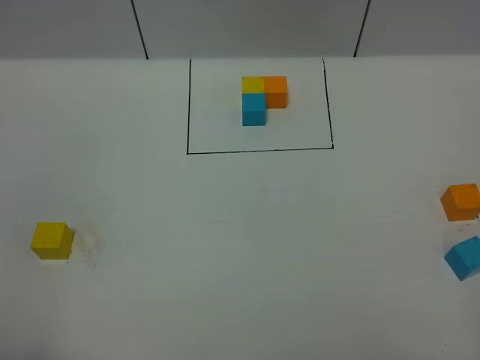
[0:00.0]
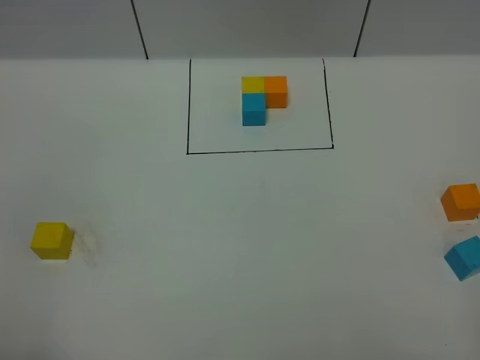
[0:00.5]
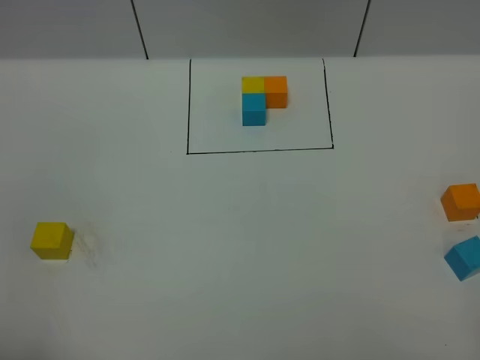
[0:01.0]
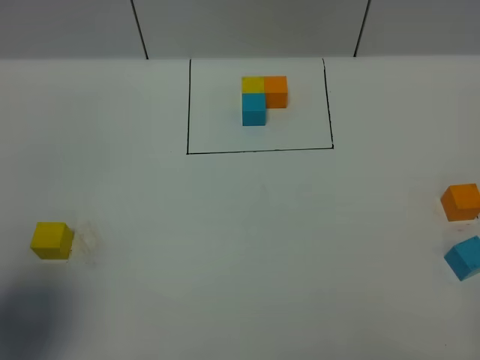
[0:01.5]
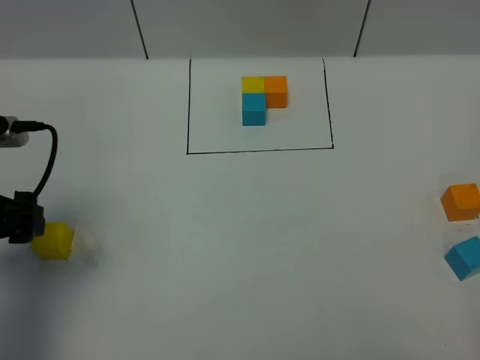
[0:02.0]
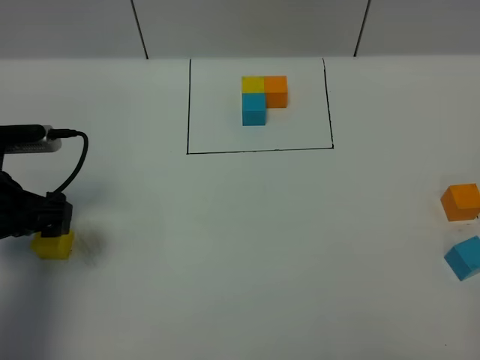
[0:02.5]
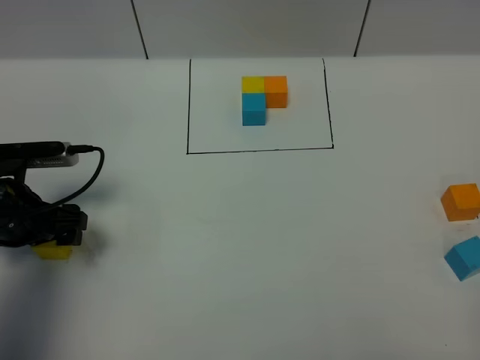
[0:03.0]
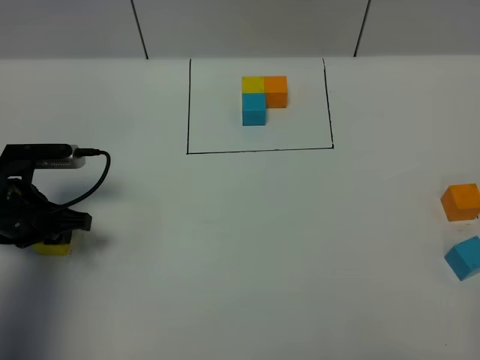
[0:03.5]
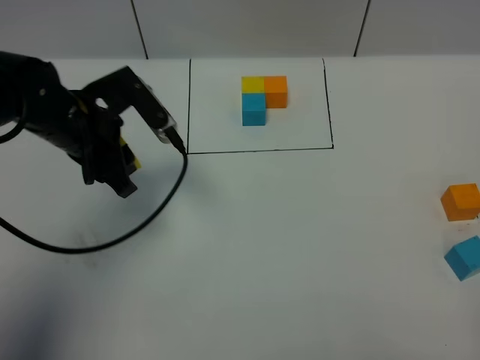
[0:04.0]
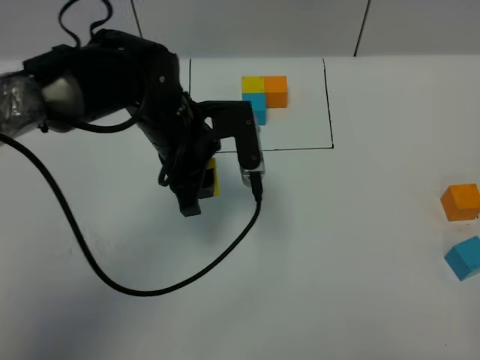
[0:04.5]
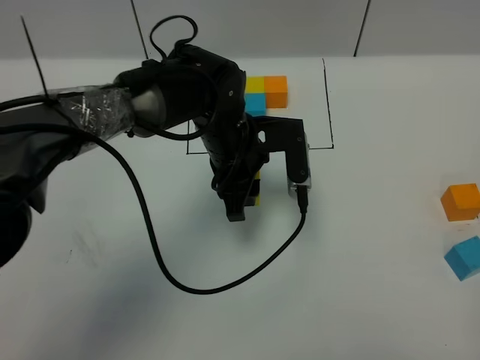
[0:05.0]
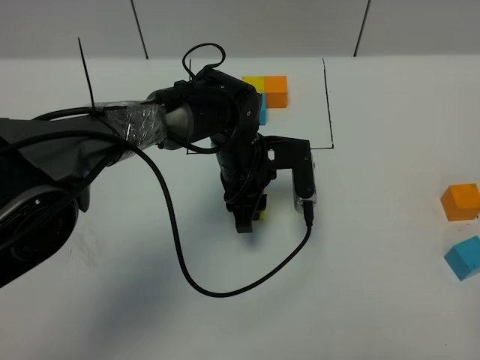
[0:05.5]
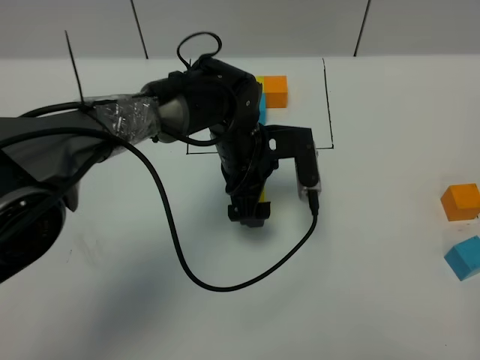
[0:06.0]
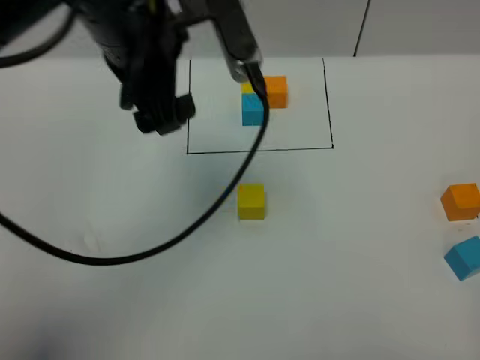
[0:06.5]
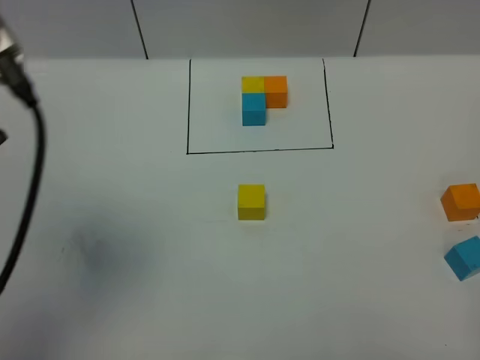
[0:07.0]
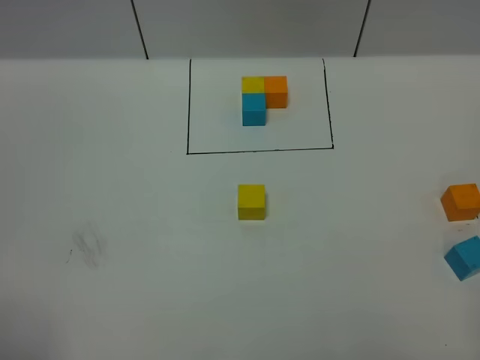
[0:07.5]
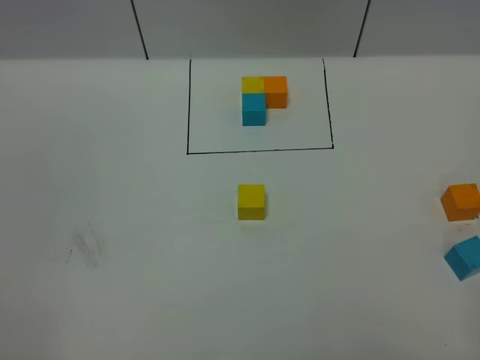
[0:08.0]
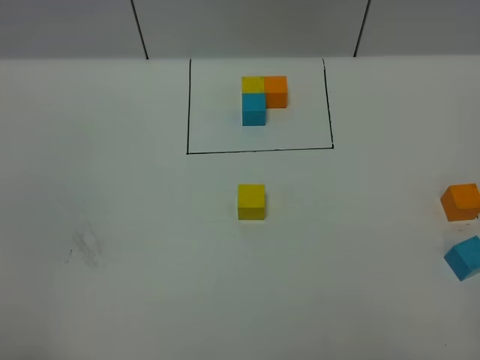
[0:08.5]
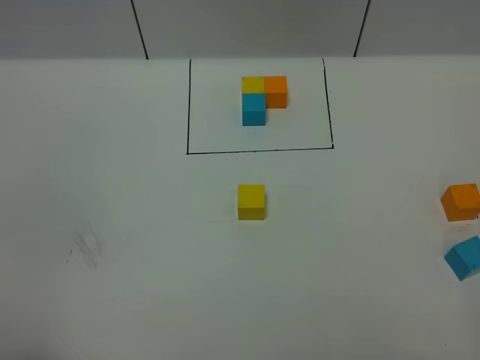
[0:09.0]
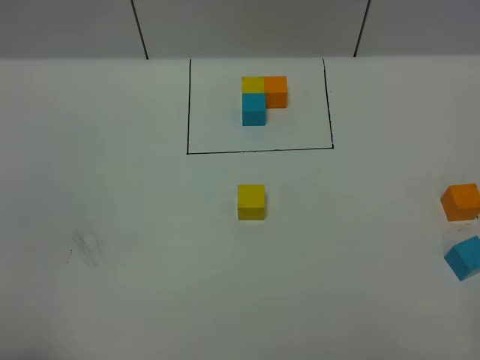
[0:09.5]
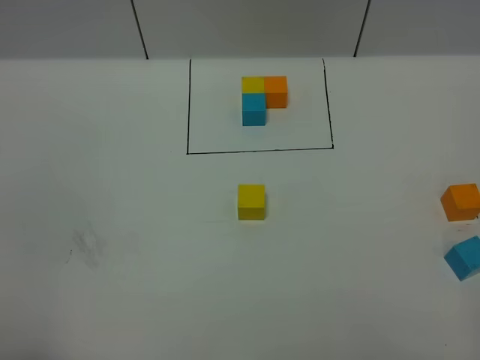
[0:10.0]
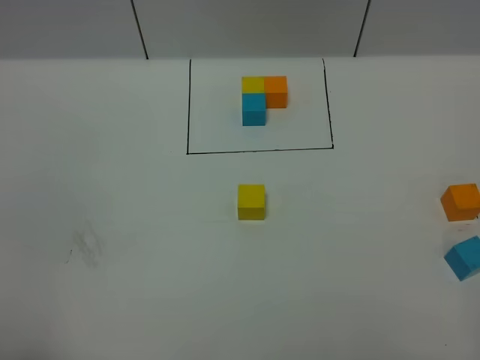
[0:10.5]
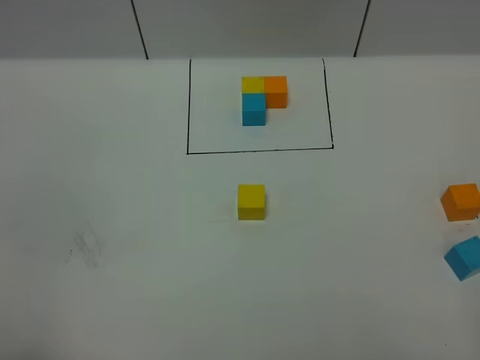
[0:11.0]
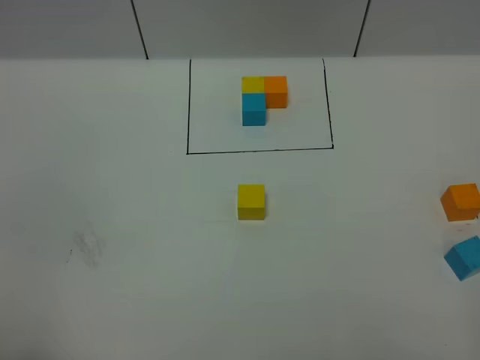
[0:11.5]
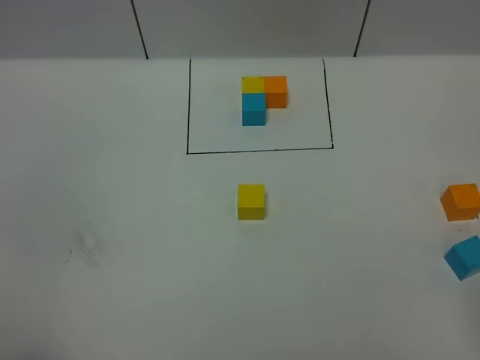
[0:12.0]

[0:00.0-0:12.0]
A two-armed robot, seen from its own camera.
Task of the whole recording: According to the building block template in front, assemble the scattered blocks together.
Step, 2.0 to 6.0 s: Put the yellow cube in the center of the table.
0.0 to 2.0 s: The left gripper travels forward by approximately 25 cm, and opens up.
2.0 to 4.0 s: The left gripper travels forward and to the right by some 15 cm, and closes up.
4.0 to 6.0 s: The left gripper heads to the right, covering about 20 cm, and opens its fingers.
6.0 to 8.0 s: The left gripper heads backward, to the left and upward, covering about 60 cm.

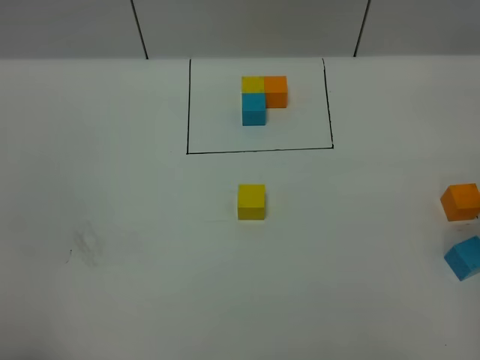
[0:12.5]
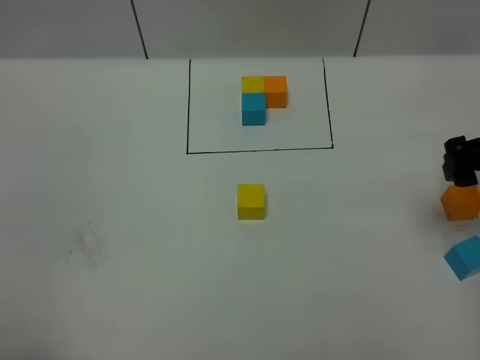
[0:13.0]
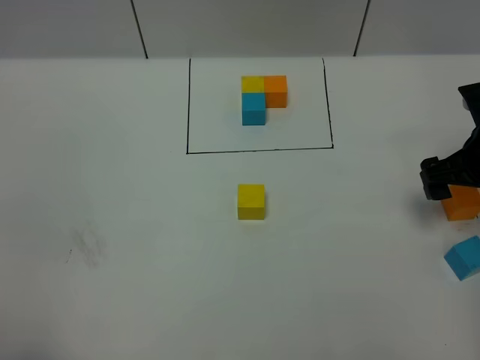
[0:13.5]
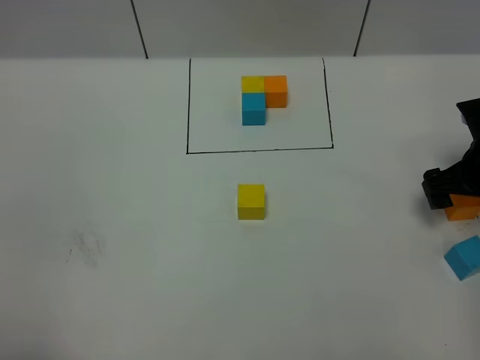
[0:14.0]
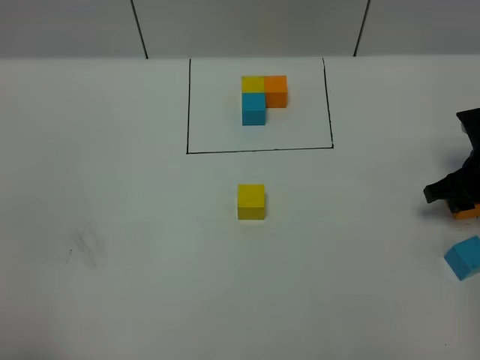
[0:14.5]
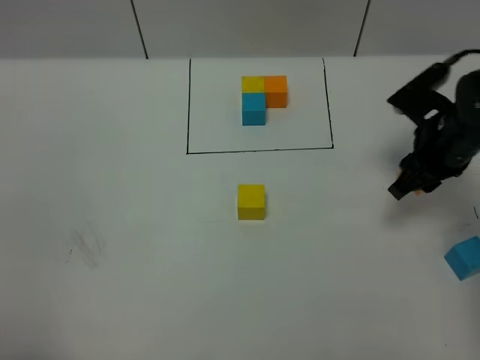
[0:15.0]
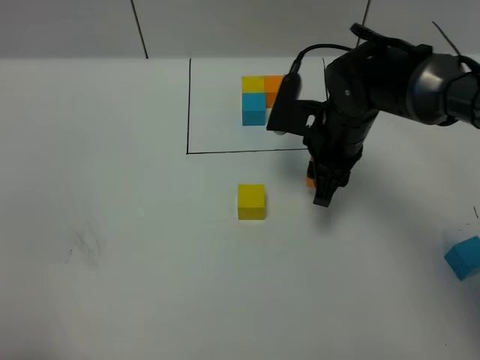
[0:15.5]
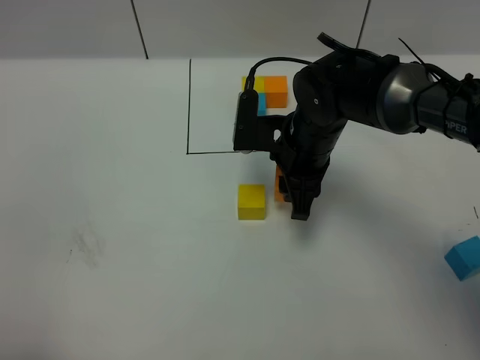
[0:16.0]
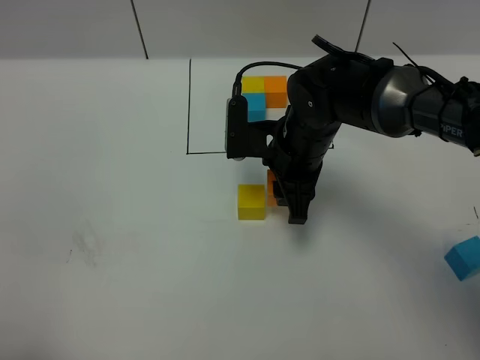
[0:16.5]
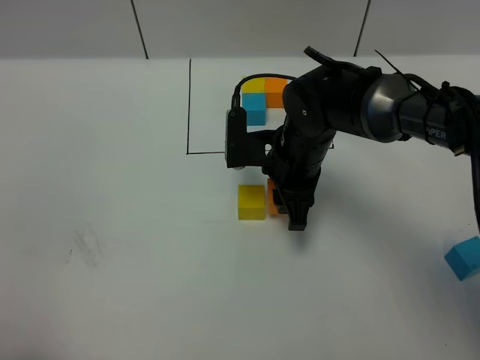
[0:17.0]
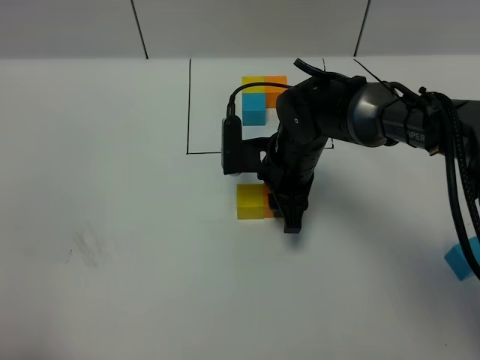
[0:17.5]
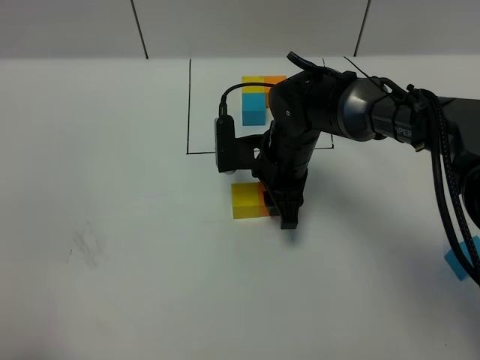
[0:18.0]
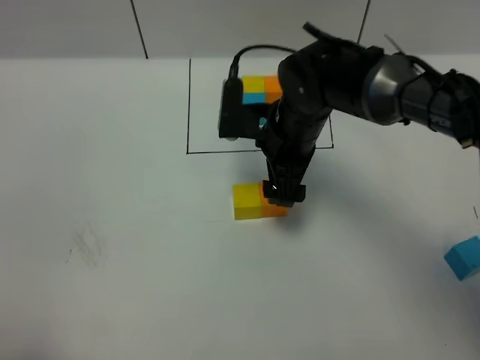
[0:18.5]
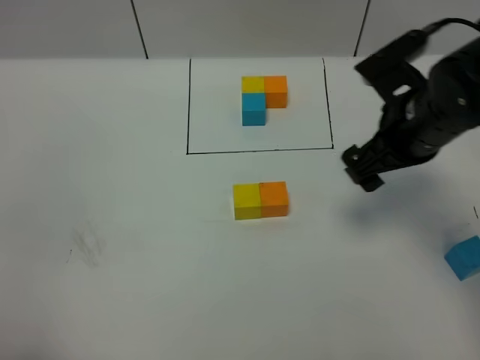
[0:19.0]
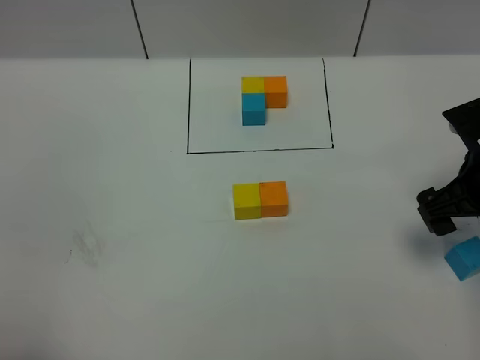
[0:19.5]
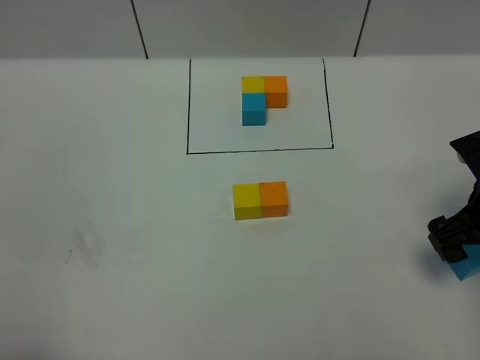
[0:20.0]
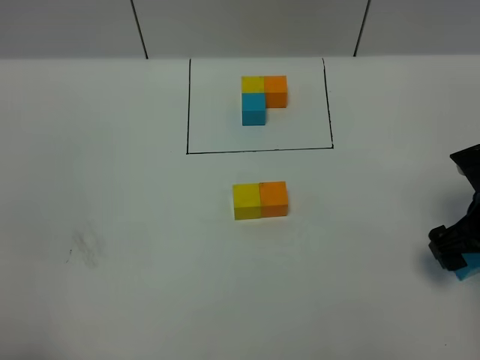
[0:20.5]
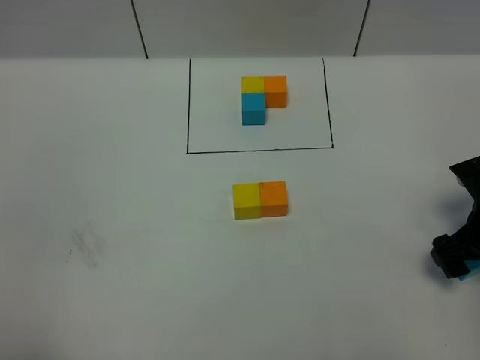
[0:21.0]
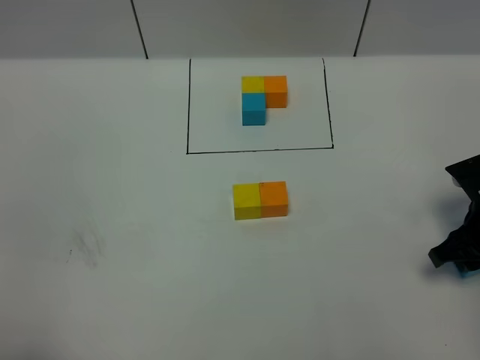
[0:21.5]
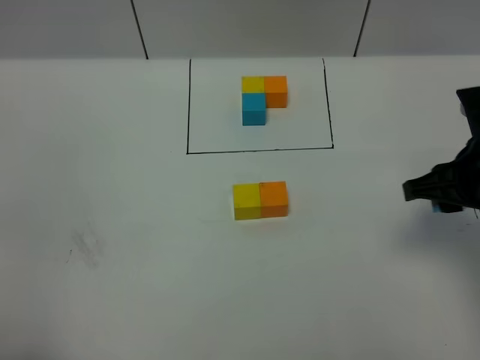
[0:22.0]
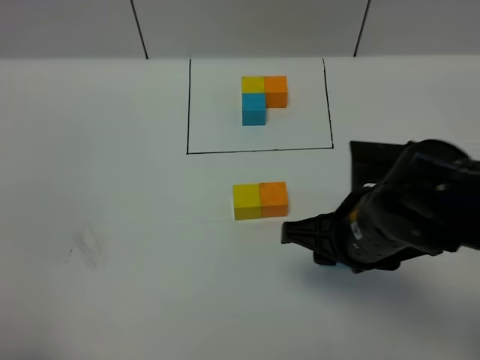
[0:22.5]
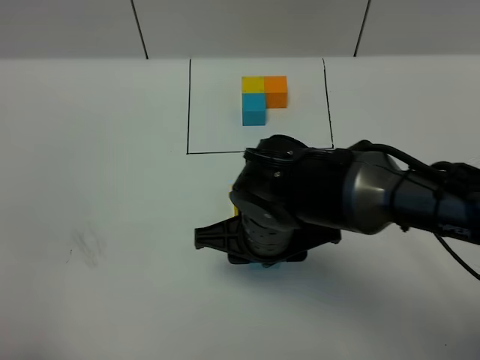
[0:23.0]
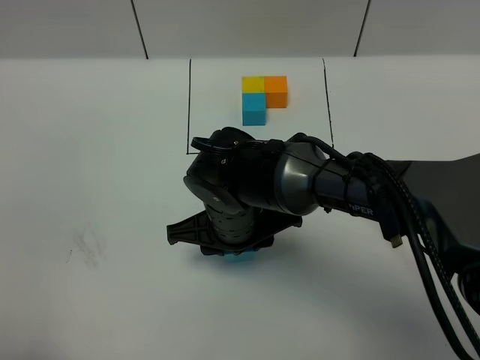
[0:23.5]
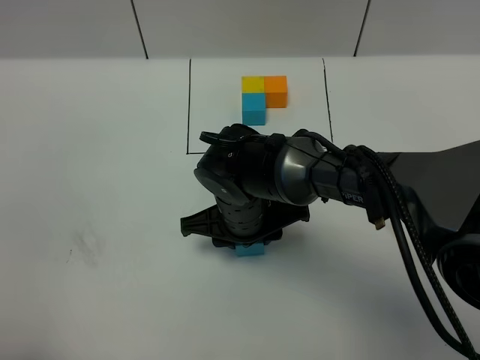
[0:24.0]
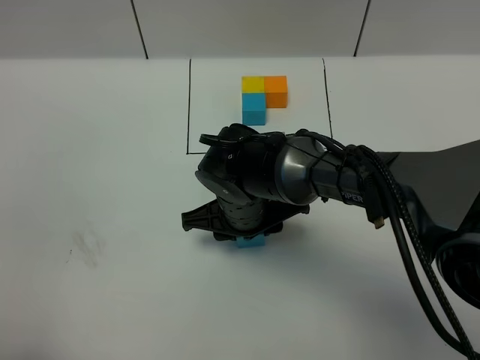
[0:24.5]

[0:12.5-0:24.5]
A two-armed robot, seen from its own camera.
Task of the whole recording: According to the building block template in front, assemble the scattered blocks together.
Step, 12.5 to 18.5 s: Put the orange cube on the right of the yellow cube.
12.5 to 14.5 s: The right gripper goes approximately 20 cm downward and forward, and opens and closes again.
14.5 to 16.5 s: The right gripper is displaced to the left by some 25 cm.
16.5 to 18.5 s: The right gripper opens.
18.5 to 20.5 s: The right gripper is displaced to the right and backward by some 25 cm.
20.5 to 22.5 s: The right gripper goes some 20 cm to the left, and closes.
22.5 to 24.5 s: The right gripper is displaced to the left, forward and downward by some 15 cm.

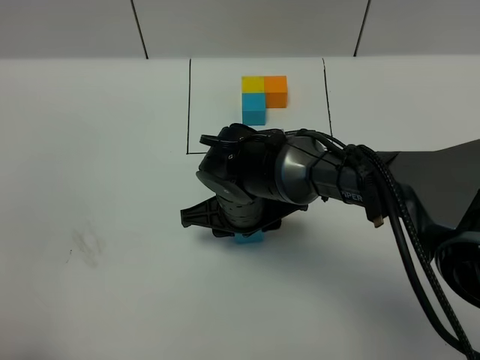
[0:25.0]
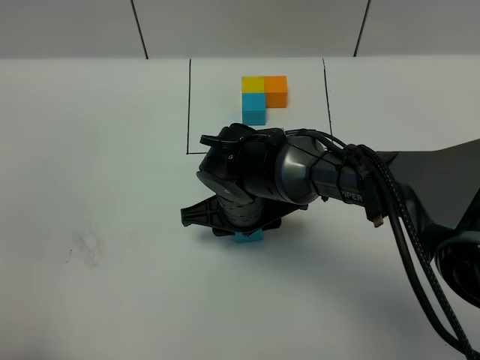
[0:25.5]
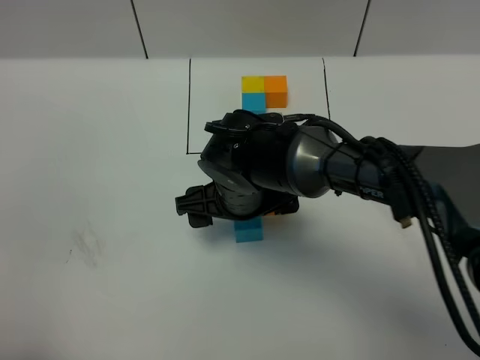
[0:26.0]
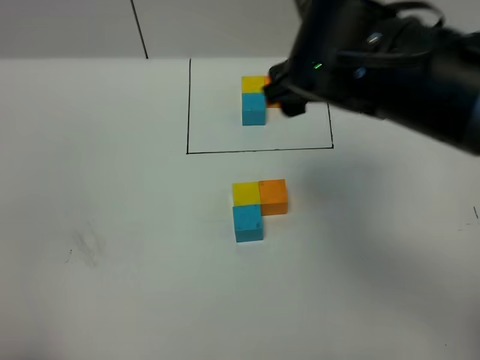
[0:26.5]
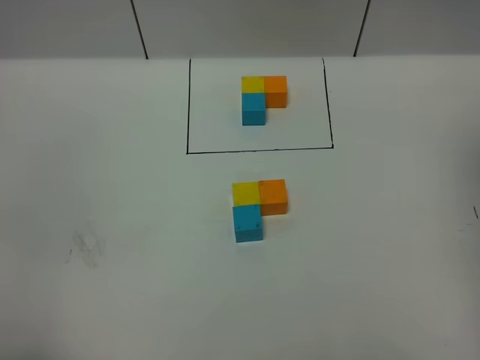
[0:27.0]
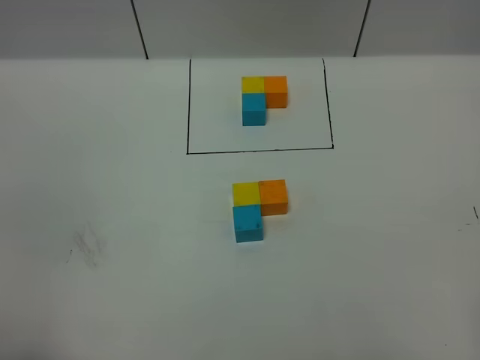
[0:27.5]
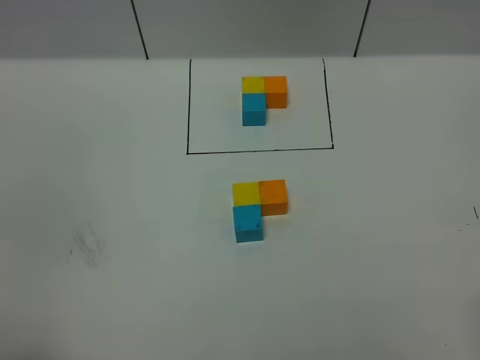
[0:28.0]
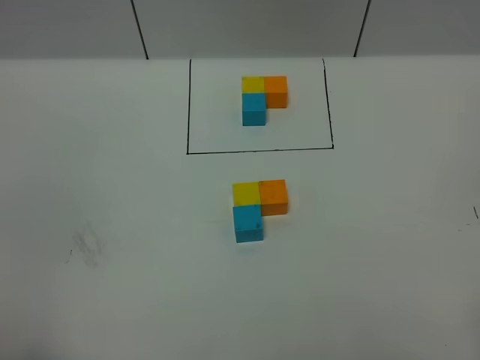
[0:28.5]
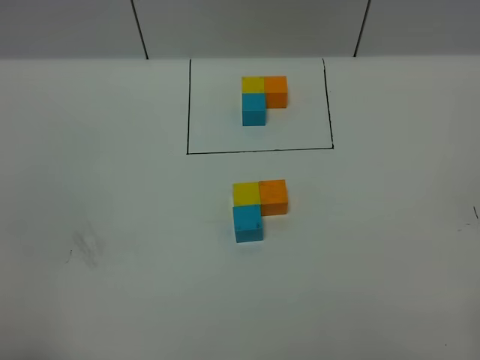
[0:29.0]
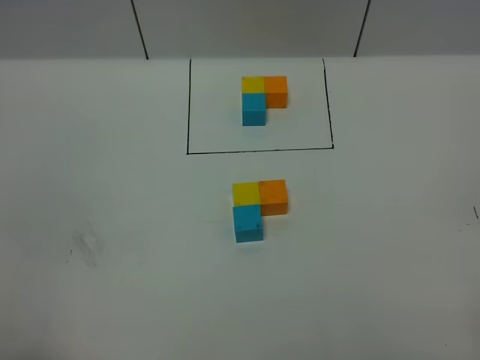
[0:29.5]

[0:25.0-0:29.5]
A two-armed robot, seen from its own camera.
Task of the whole recording: According to the building block template in front, assemble the scattered blocks together.
25.0 to 27.0 s: The right gripper is displaced upward and to the right by approximately 50 cm, and opens up.
